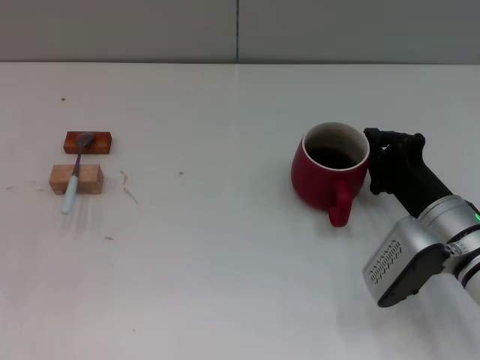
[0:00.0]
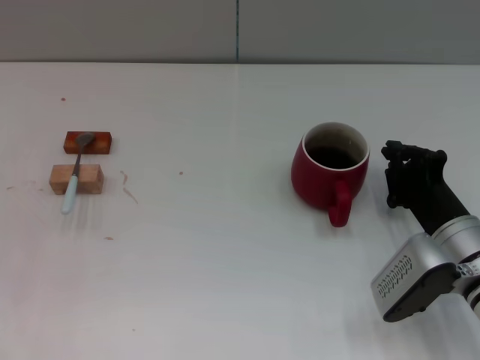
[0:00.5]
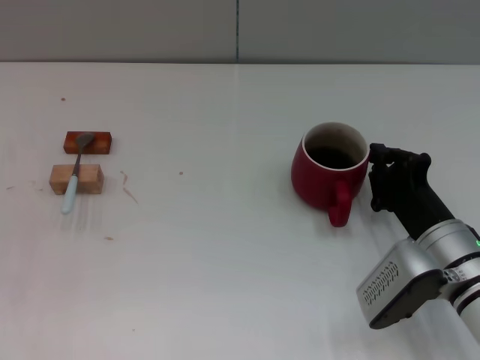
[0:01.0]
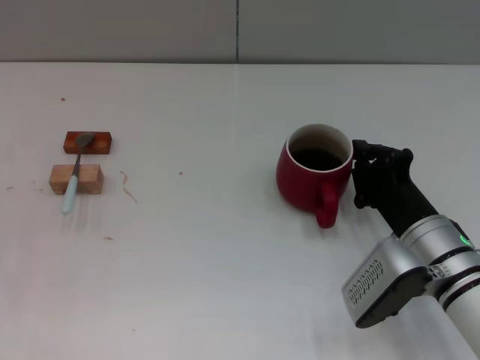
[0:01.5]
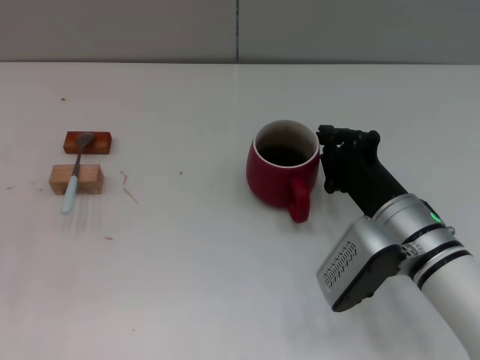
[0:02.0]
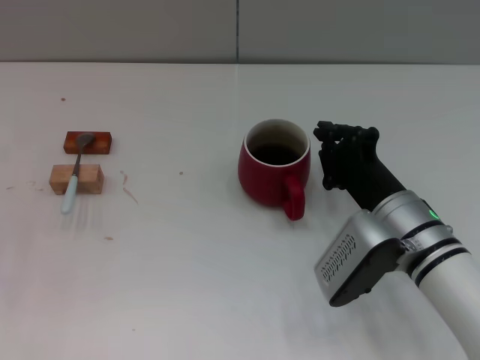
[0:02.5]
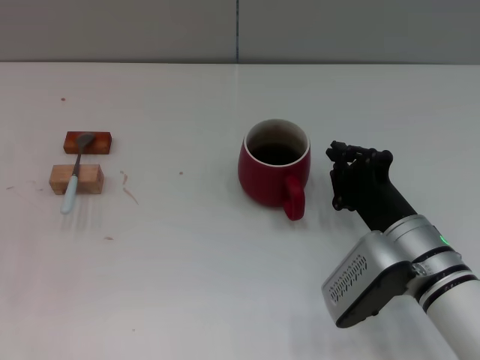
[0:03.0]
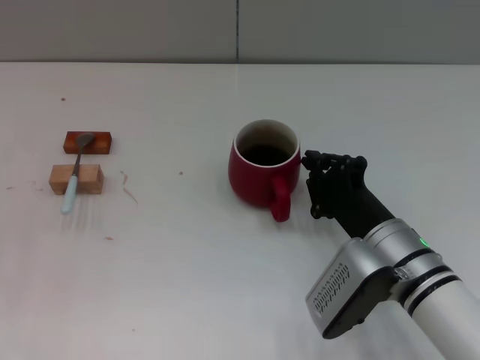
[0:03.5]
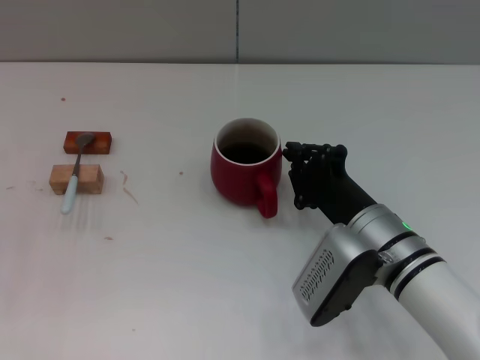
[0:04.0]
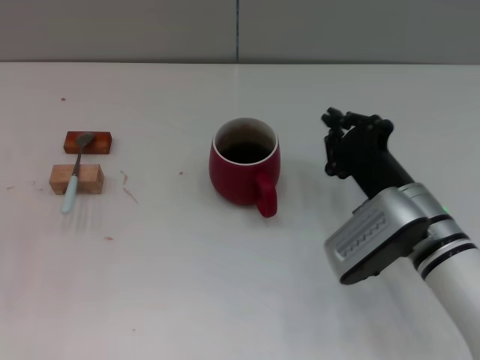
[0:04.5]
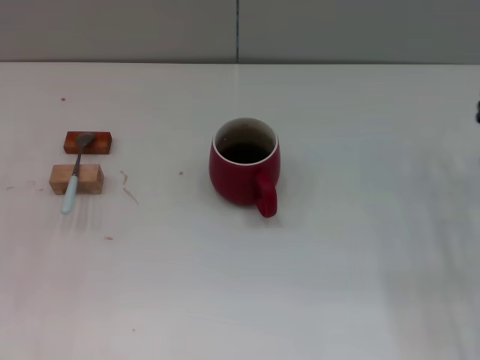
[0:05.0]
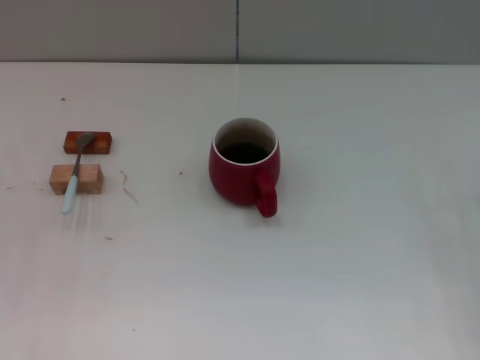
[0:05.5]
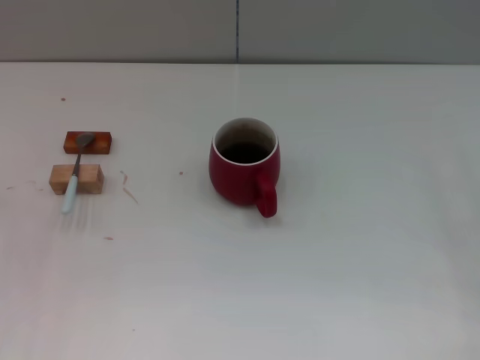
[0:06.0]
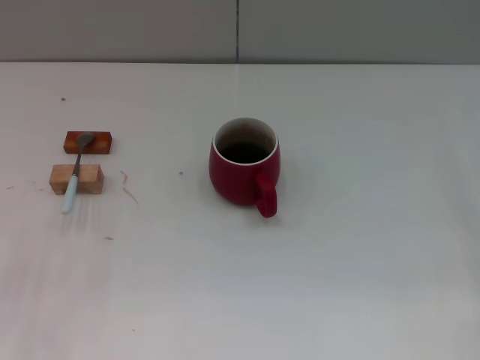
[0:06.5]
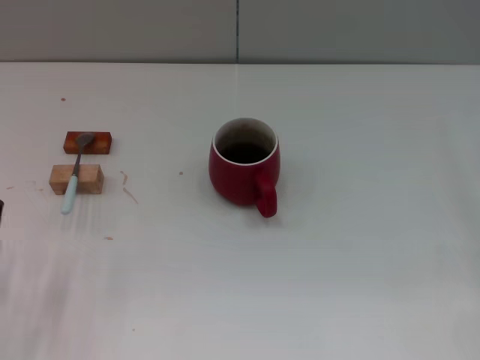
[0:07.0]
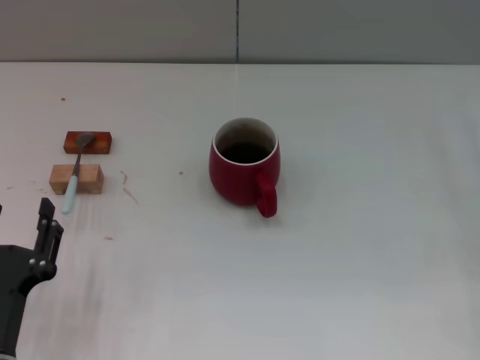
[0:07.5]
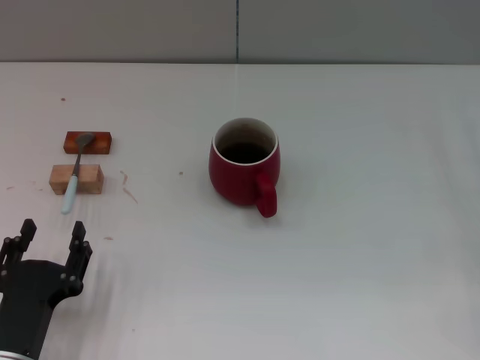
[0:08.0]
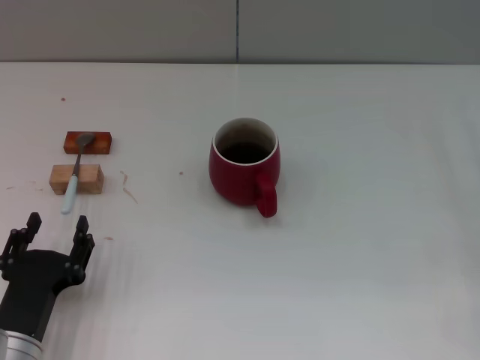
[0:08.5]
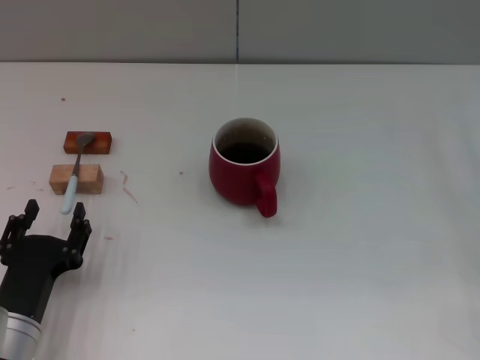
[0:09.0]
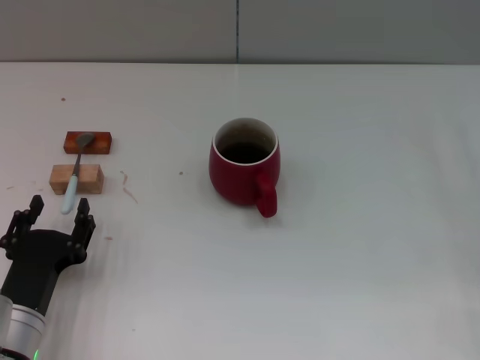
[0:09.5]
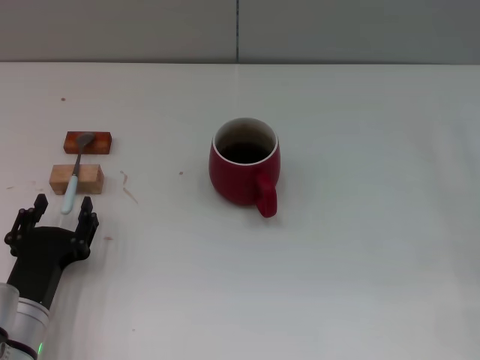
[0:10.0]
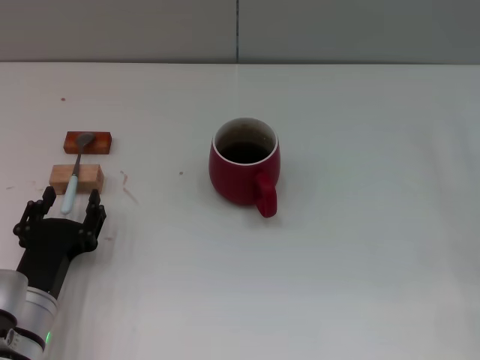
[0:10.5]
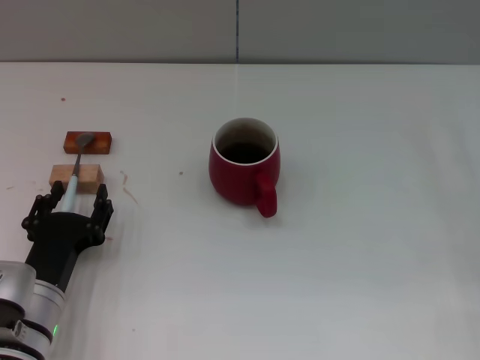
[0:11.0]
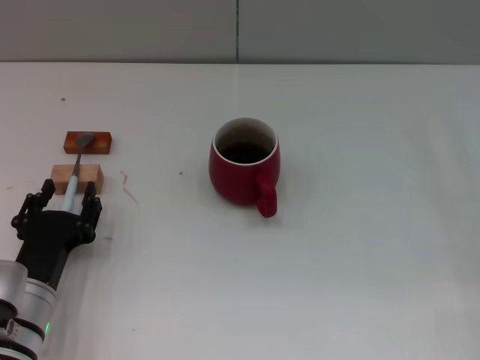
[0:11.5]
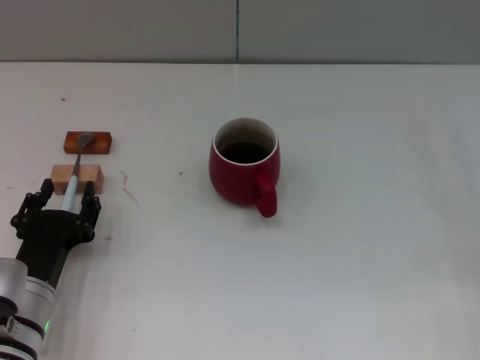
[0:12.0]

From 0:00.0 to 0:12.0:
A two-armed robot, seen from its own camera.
Task of the whole recording: Move the red cup to the center, lift the blue spoon, stir it three times in the cup, and put the spoon into the cup.
Step, from 0:00.0 to 0:04.0: Move the cup with coffee to the center of view with the right gripper.
From 0:00.0 to 0:02.0: The right gripper shifts some 5 cm to the left.
From 0:02.0 to 0:04.0: There are only small adjustments of the grippers.
From 0:04.0 to 0:06.0: The right gripper goes roughly 25 cm to the right, and opens.
From 0:06.0 to 0:08.0: The left gripper shifts roughly 20 cm to the right, backward and downward.
From 0:08.0 to 0:10.0: The left gripper heads forward, covering roughly 5 cm.
From 0:10.0 to 0:12.0: There are only small adjustments of the grippers.

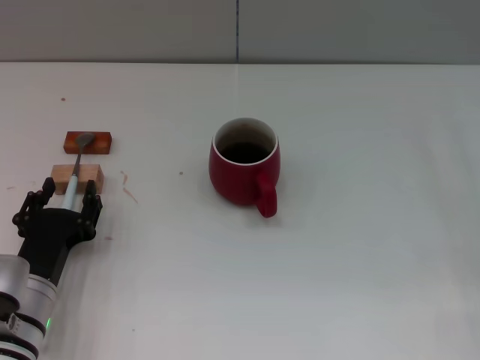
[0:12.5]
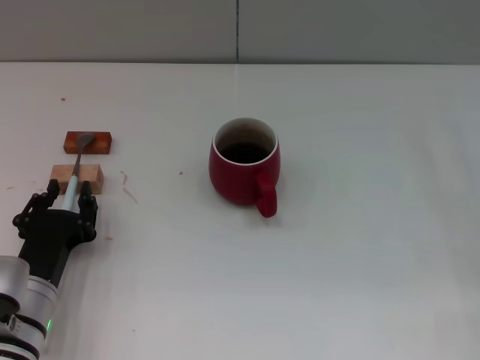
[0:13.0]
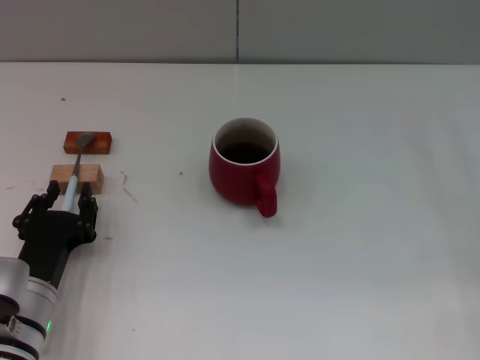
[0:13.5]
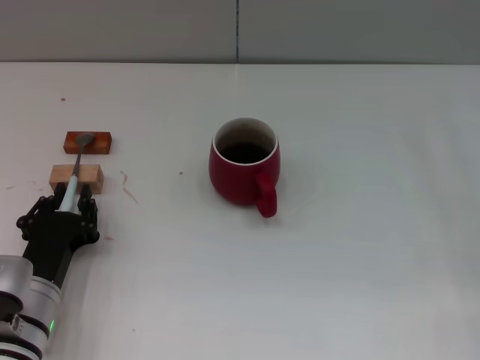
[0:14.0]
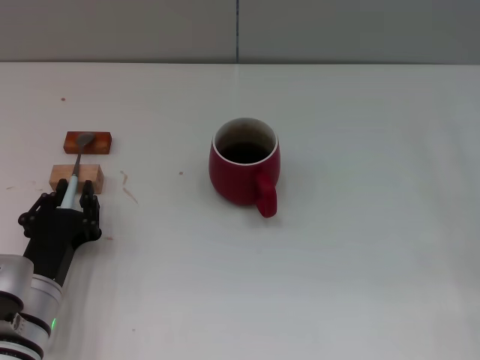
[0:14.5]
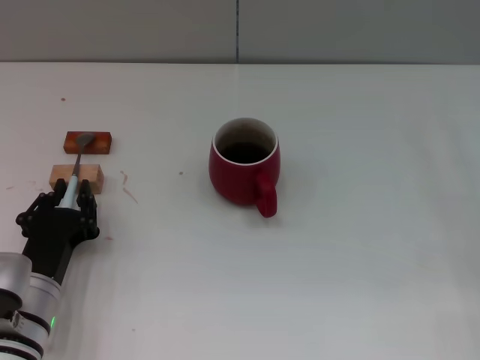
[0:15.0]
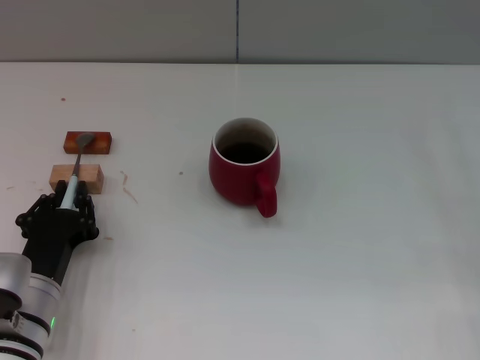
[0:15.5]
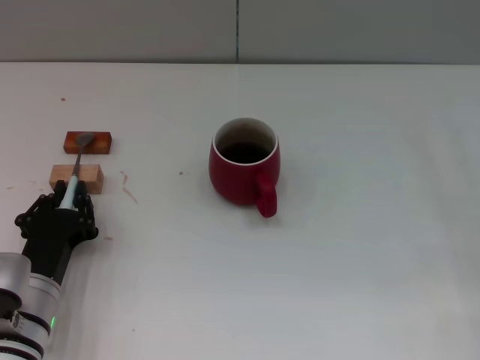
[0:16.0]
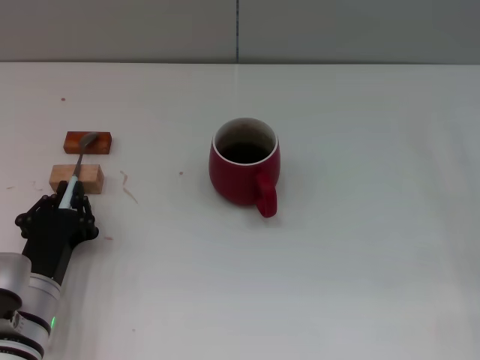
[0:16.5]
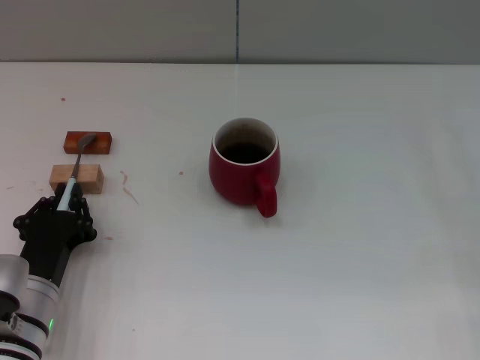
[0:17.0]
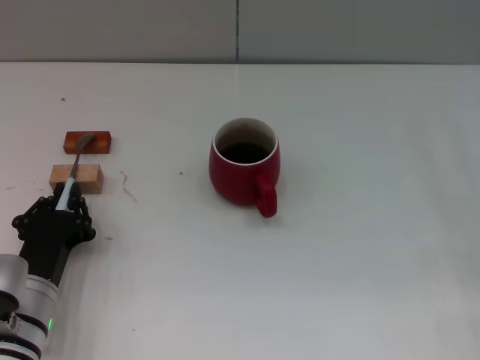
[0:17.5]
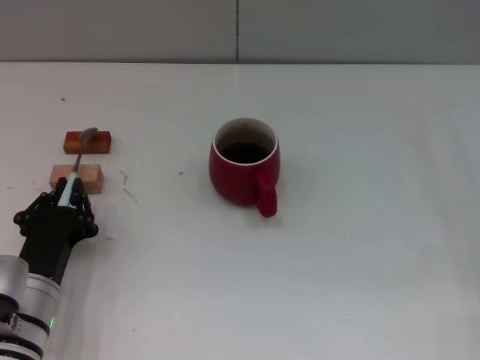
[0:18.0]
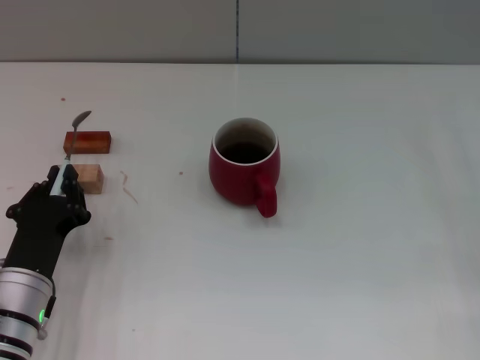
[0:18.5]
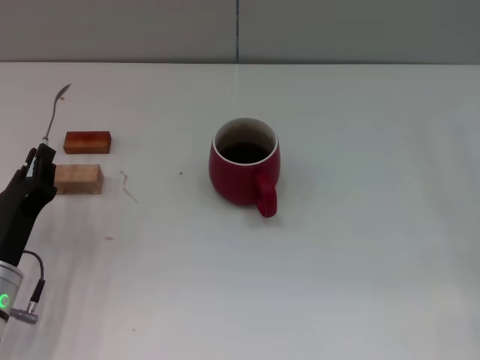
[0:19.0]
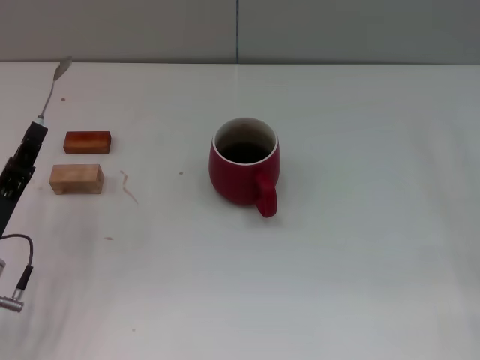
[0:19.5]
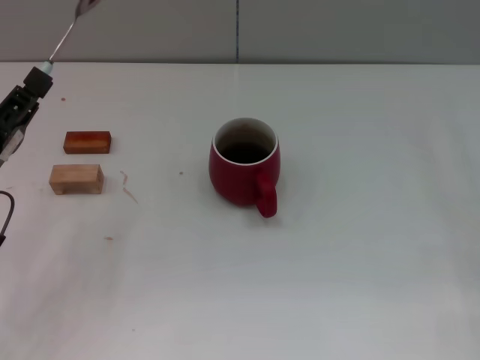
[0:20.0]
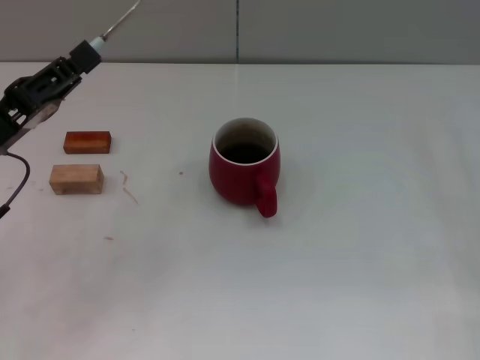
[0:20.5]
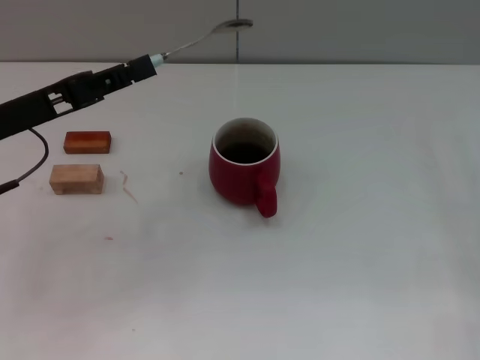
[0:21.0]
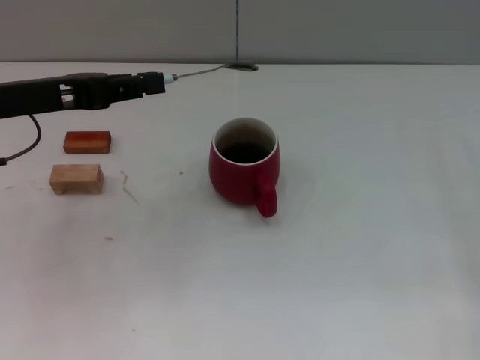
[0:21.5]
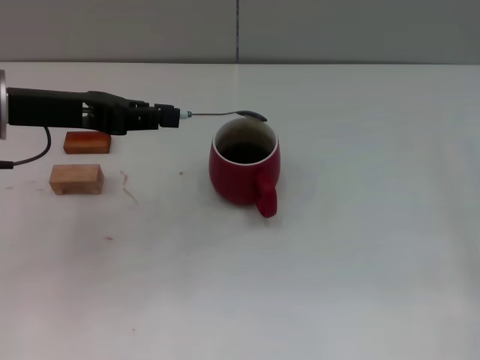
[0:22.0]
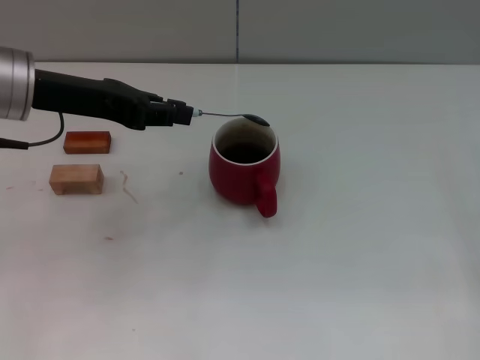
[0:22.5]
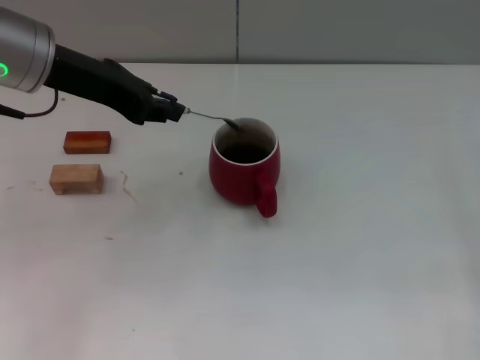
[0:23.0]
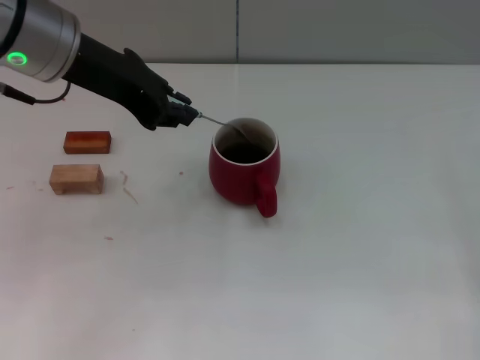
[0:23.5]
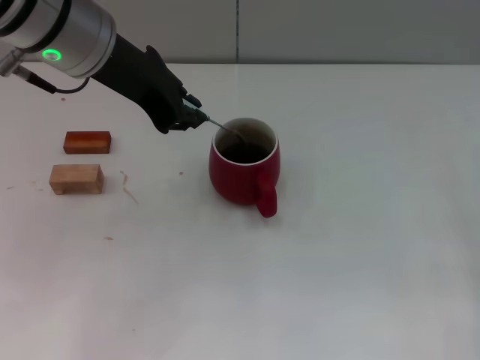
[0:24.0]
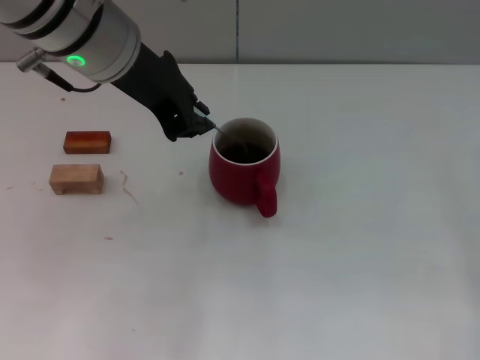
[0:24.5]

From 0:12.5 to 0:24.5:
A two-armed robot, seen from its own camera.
Task of the whole recording: Move the red cup to the center, lift the blue spoon, stir it three times in the cup, and put the spoon into the cup.
Step, from 0:12.5 to 0:19.5: Pick up the spoon with the left gripper.
From 0:12.5 to 0:14.5: The left gripper closes its fingers.
From 0:14.5 to 0:16.5: Neither gripper changes place.
From 0:16.5 to 0:18.5: The grippers make only small movements.
From 0:18.5 to 0:20.5: The left gripper moves upward, forward and to the left, some 15 cm.
From 0:20.5 to 0:22.5: The left gripper shifts approximately 15 cm upward, forward and to the right.
From 0:22.5 to 0:24.5: The left gripper heads to the right and upward, covering some 10 cm.

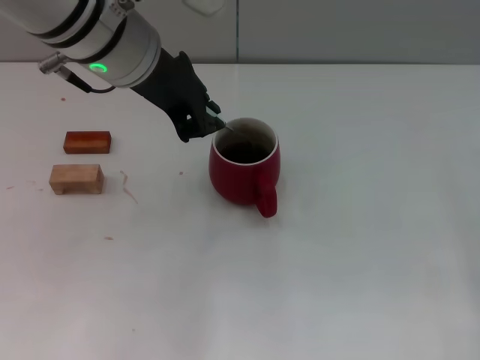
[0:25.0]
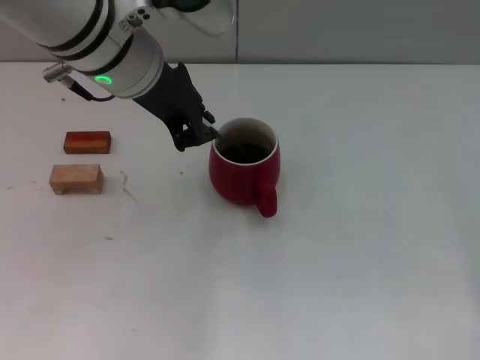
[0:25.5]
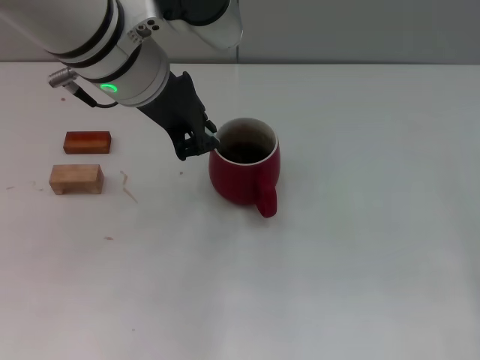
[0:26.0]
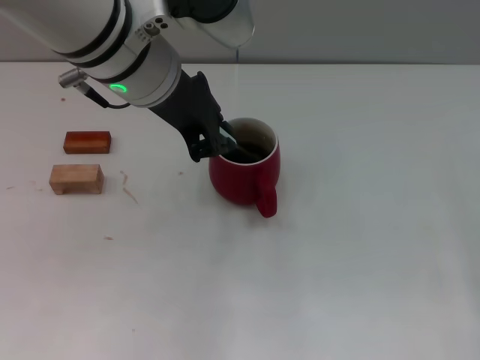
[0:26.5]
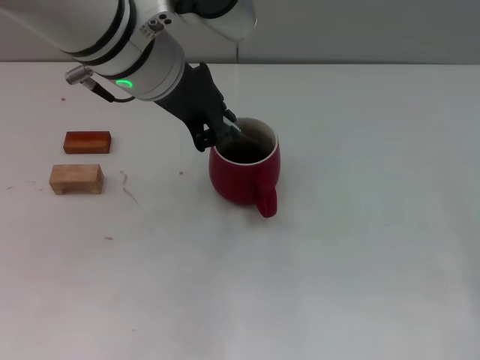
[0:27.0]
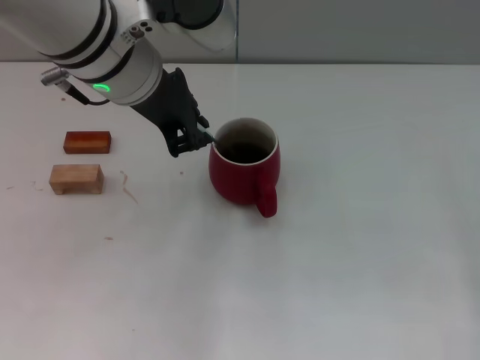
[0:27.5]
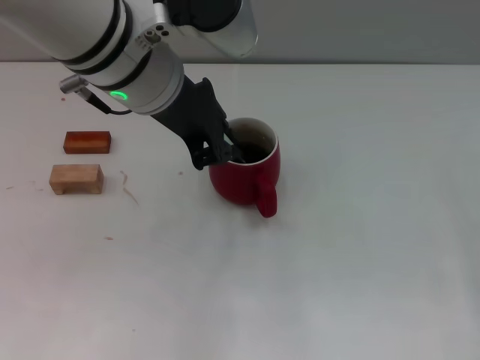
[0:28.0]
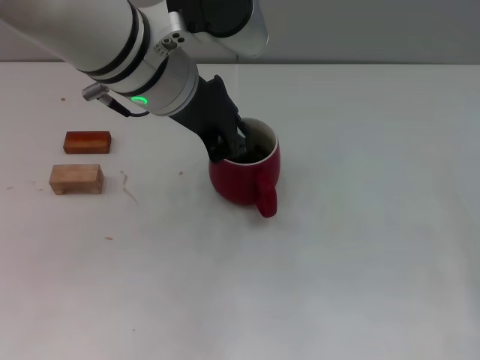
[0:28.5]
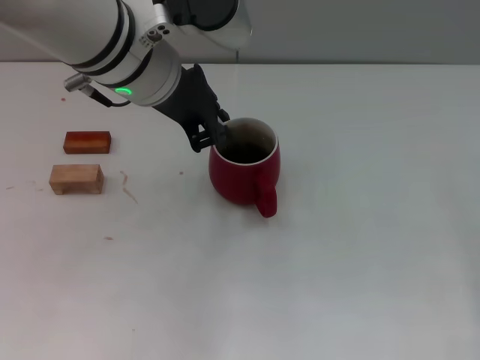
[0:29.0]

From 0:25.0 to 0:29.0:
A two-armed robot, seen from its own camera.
Task of the whole recording: Move the red cup to the center, lift the blue spoon, stir it three times in the cup, and put the spoon into the cup.
From 0:25.0 to 0:29.0: The grippers stay close to where they were, moving slightly.
